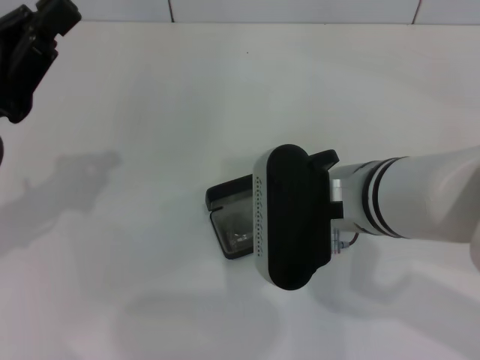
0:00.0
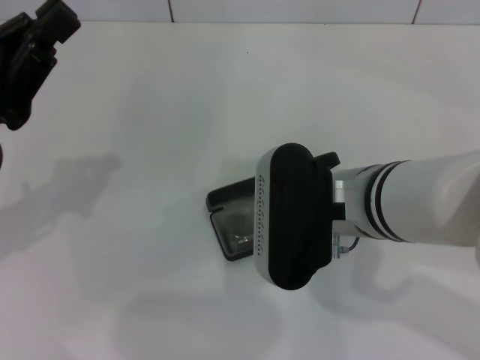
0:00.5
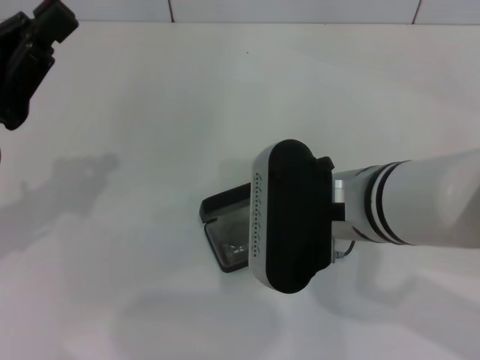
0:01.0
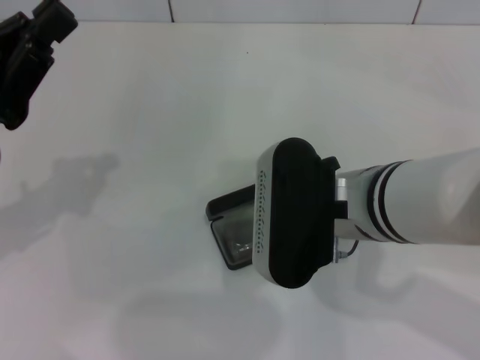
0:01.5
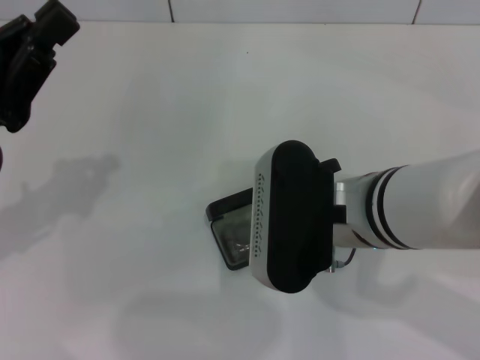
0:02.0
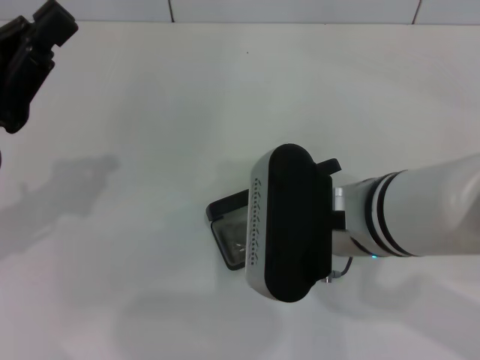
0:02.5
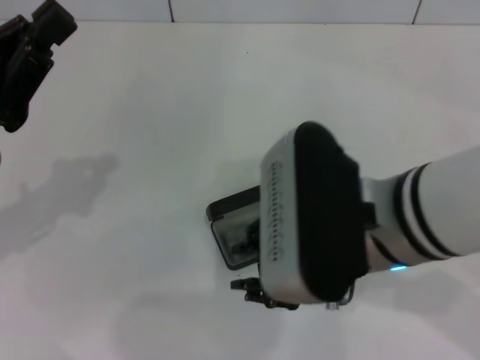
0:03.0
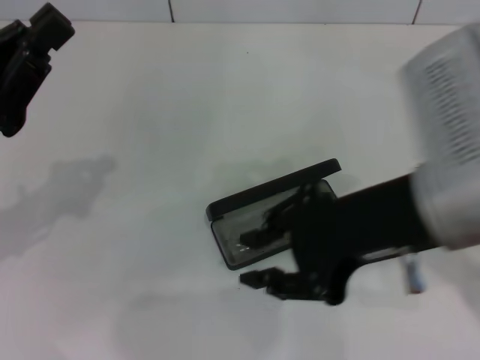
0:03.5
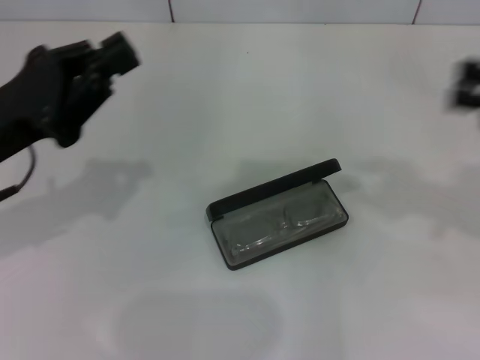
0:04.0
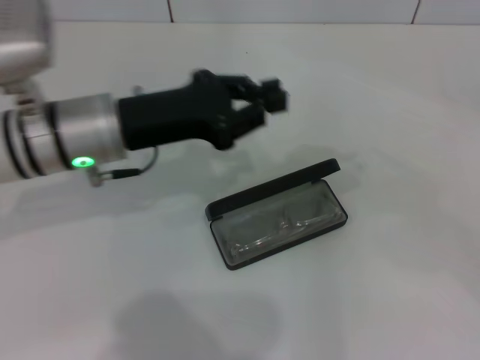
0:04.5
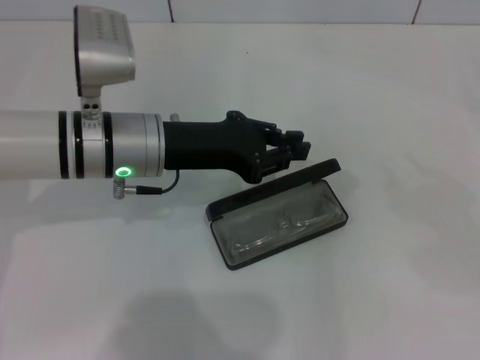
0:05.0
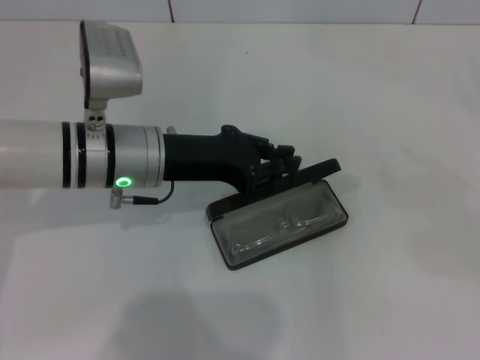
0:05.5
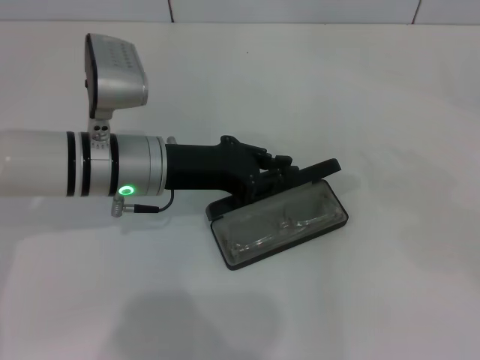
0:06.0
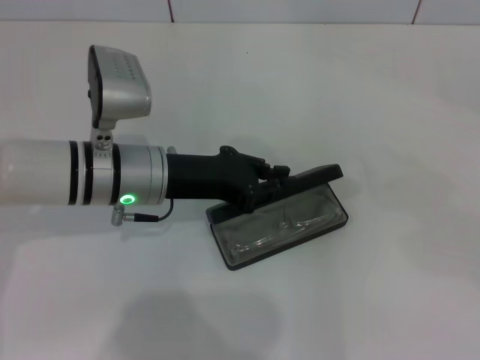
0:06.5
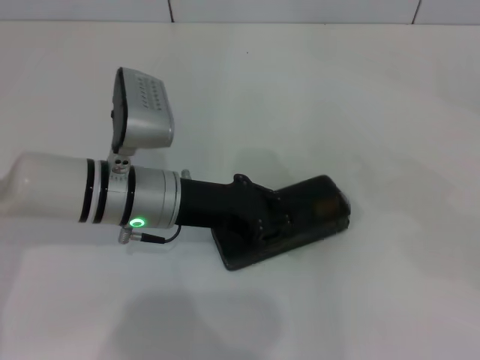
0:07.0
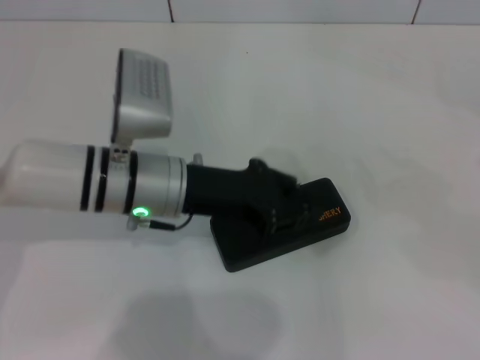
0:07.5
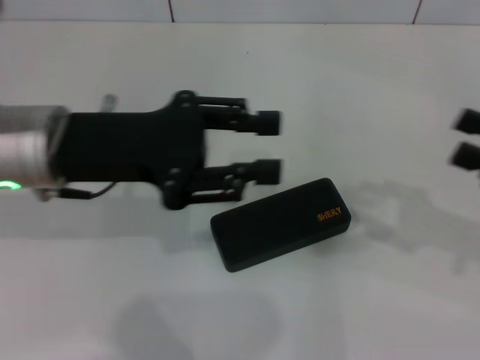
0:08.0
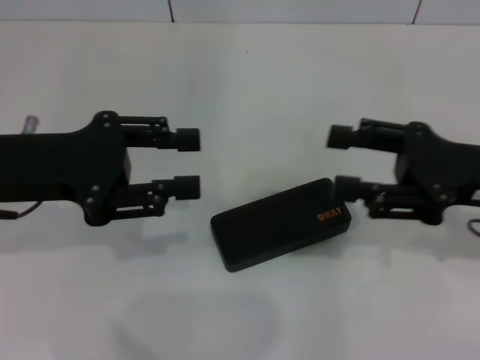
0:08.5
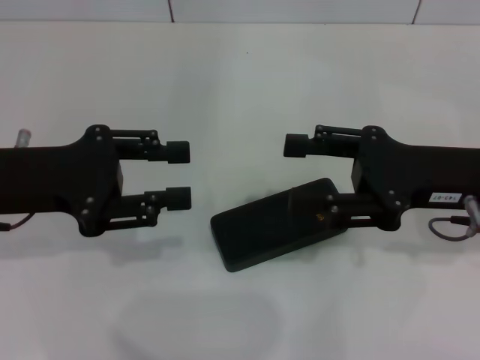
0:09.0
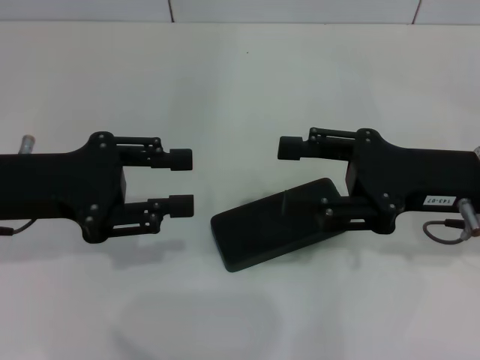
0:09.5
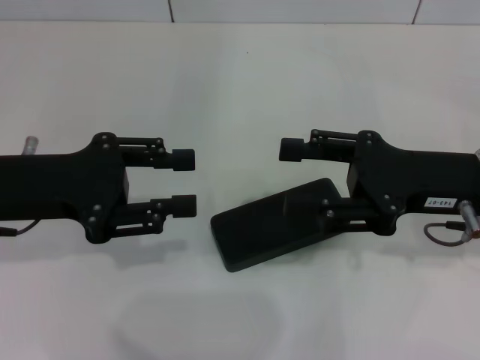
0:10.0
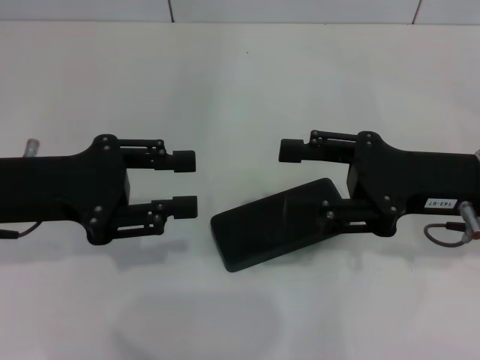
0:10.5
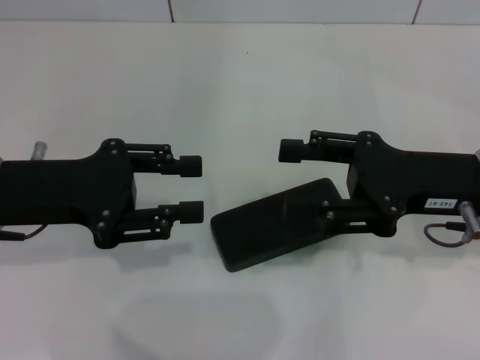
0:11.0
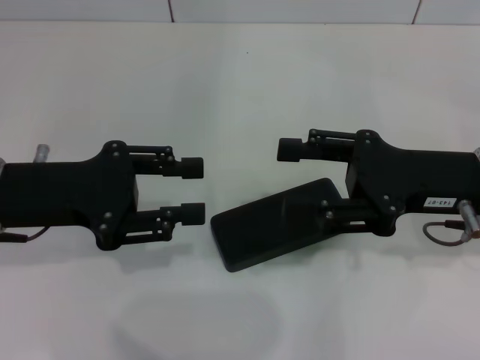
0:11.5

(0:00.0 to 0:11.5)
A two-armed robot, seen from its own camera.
Step, 0:00.0 - 0:02.0: Put the glasses into the case with your right hand.
Step, 0:02.5 - 0:07.0: Close the glasses case with your left hand.
0:00.0 - 0:02.0: The grippers stay close to where they were, moving slightly.
0:02.0 - 0:04.0: The right gripper moves to the right, approximately 25 cm.
0:04.0 - 0:06.0: The right gripper travels to the right and downward by roughly 15 cm, while the left gripper shifts approximately 15 cm to the right, forward and downward.
0:06.0 - 0:07.5: There are only small adjustments of the grippers.
0:07.5 - 0:09.5: The right gripper moves to the left, approximately 20 cm, and opens. The left gripper is displaced to the left and upward by about 15 cm, and opens up.
0:09.5 - 0:11.5: The two grippers keep their place.

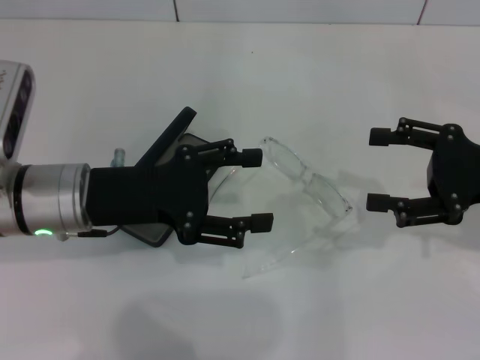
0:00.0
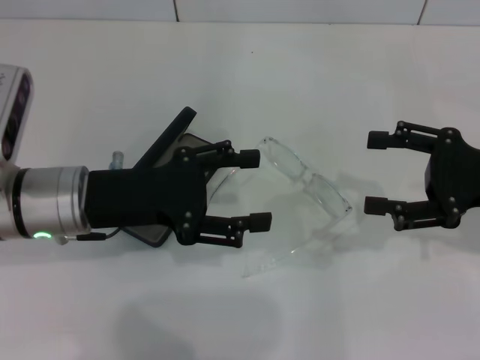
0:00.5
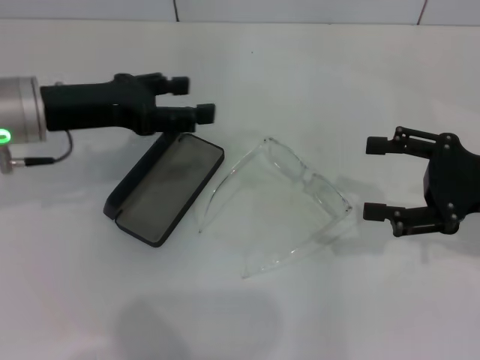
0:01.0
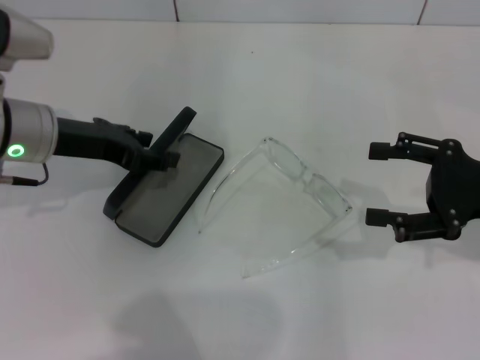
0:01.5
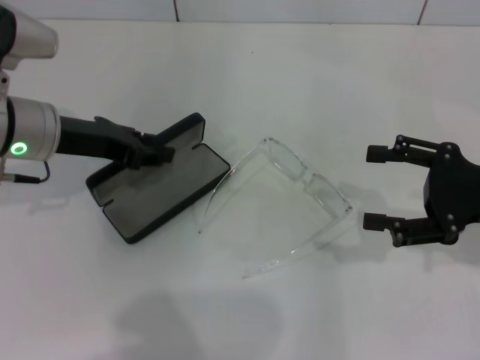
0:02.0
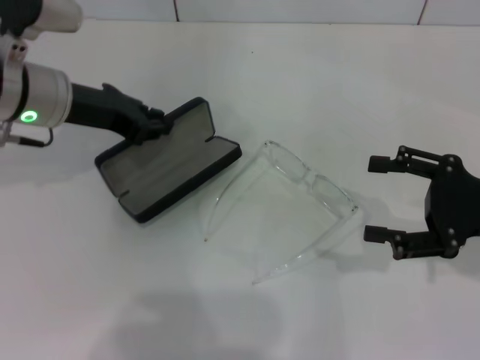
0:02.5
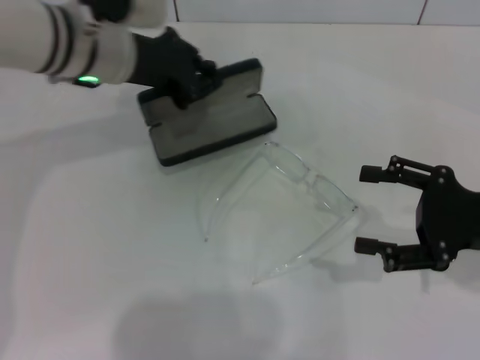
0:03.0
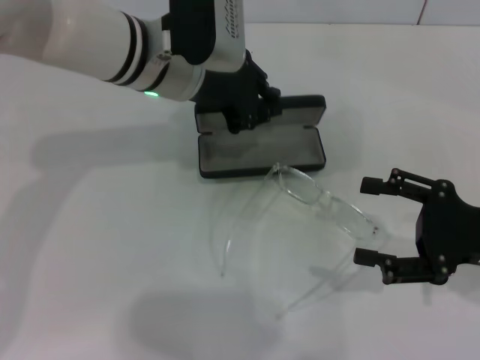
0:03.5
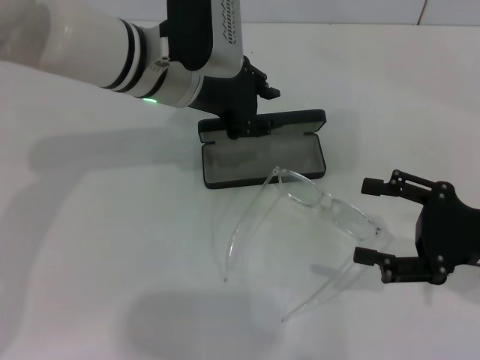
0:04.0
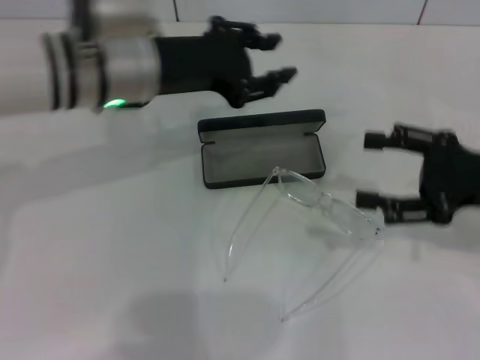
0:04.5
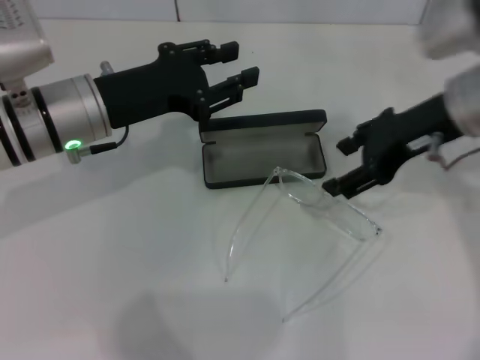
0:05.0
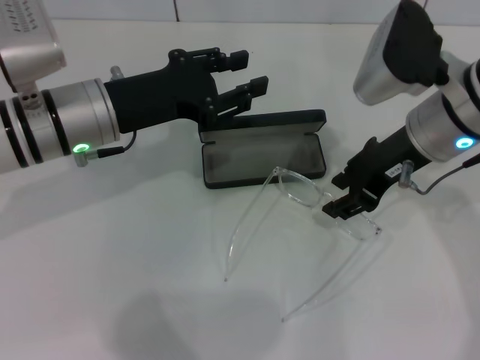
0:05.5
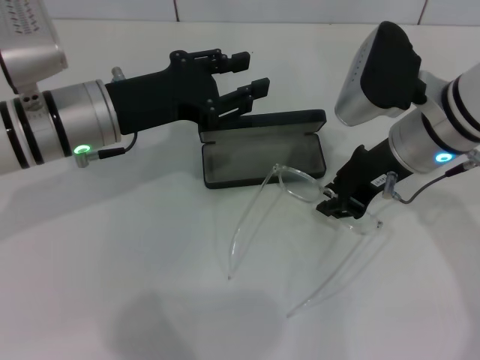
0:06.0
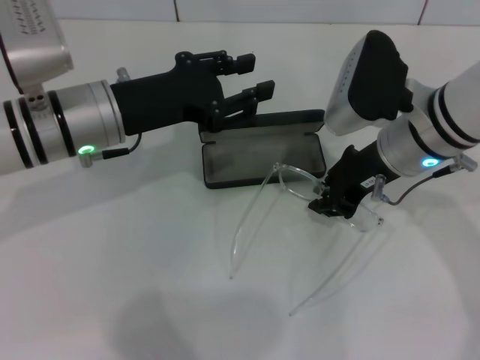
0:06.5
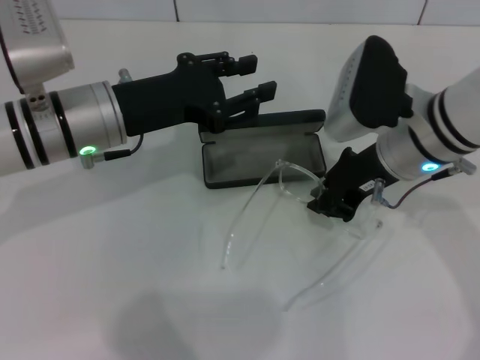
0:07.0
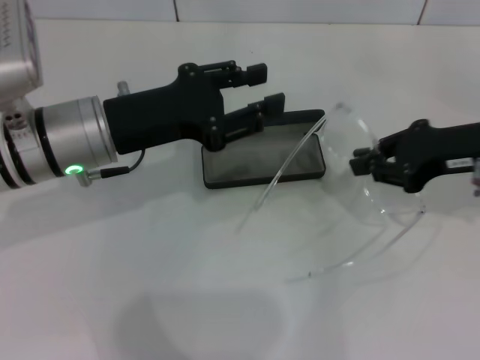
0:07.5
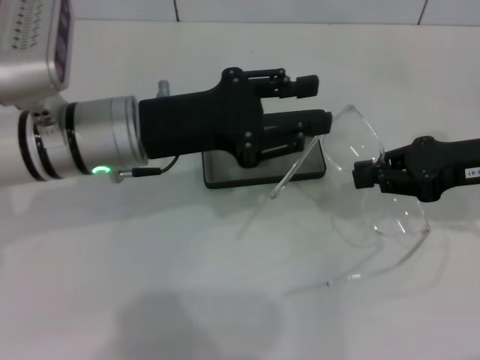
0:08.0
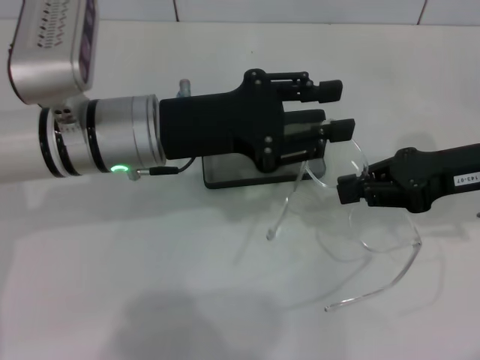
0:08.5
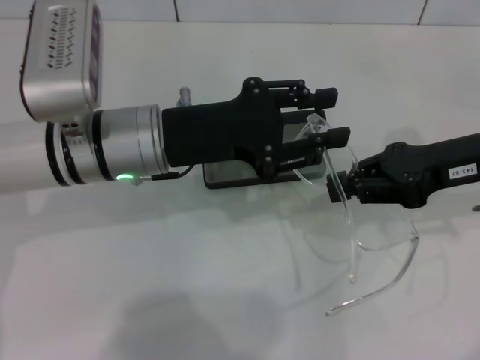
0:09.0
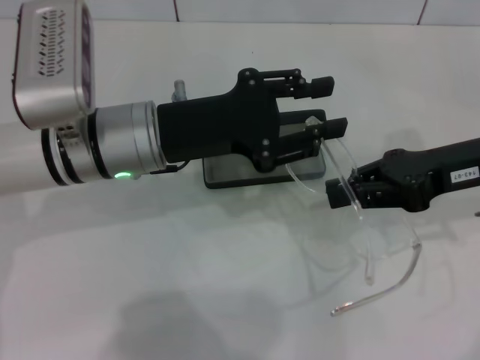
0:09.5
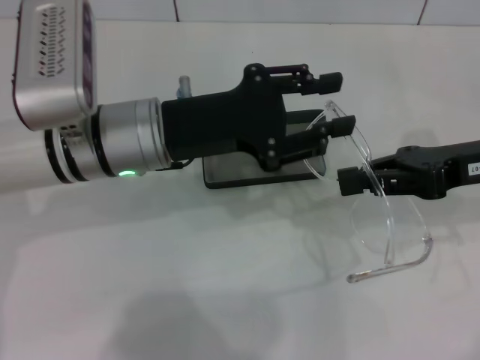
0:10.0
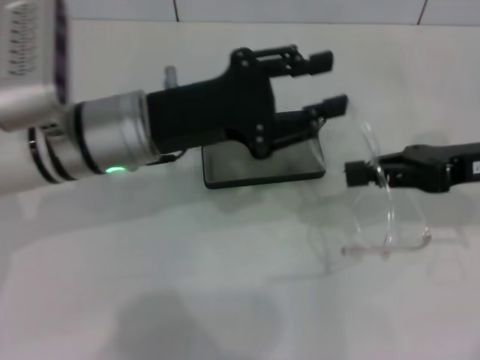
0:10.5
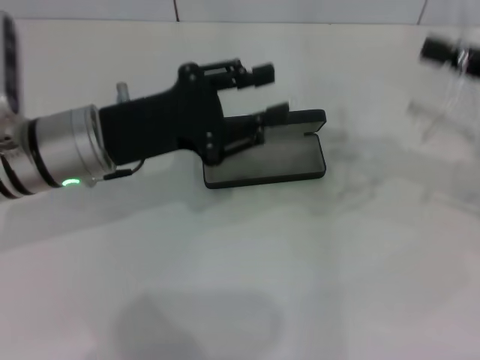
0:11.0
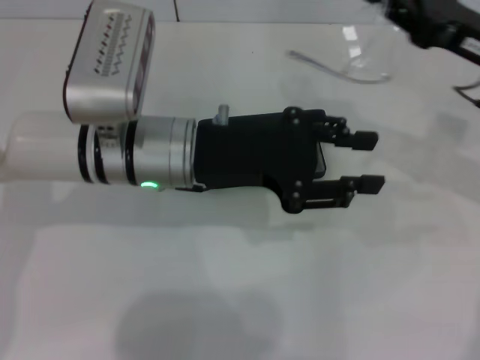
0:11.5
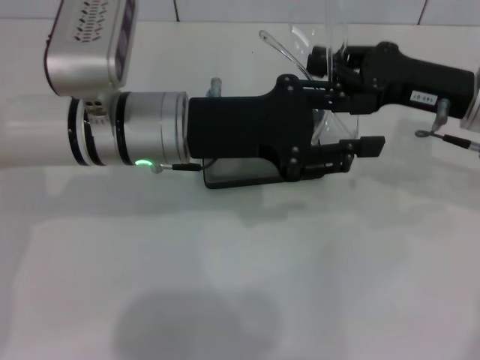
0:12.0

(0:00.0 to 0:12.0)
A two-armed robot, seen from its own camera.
Step, 0:00.0 - 0:02.5: Grab the glasses case with your left hand.
Step, 0:03.0 - 0:04.0: Place the glasses case in the center of the table with your left hand.
Step, 0:04.5 - 0:07.0: Grab the eyeglass frame with your right hand.
0:00.0 - 0:02.0: The left gripper goes approximately 5 cm forward, and closes its fingers.
0:02.0 - 0:04.0: The left gripper moves to the right, roughly 15 cm, and closes.
0:04.0 - 0:06.0: The left gripper is displaced to the left and backward by roughly 10 cm. The right gripper shifts roughly 20 cm to the left, forward and upward, and closes up.
0:06.0 - 0:08.0: The right gripper is displaced to the right by approximately 10 cm.
0:08.0 - 0:10.0: The grippers make only small movements.
0:10.0 - 0:12.0: The right gripper travels to the right and back again, about 5 cm each way.

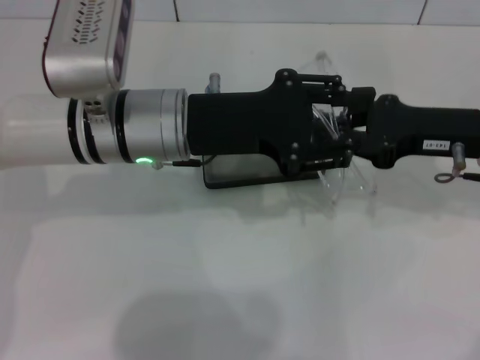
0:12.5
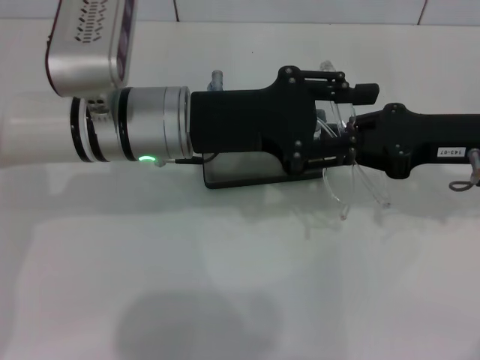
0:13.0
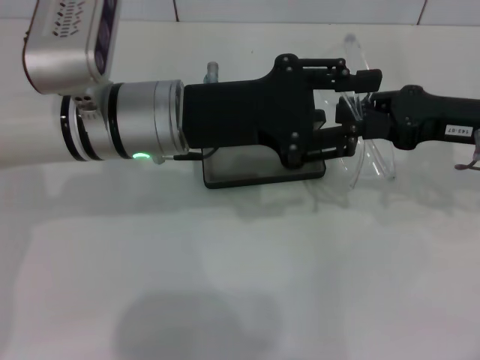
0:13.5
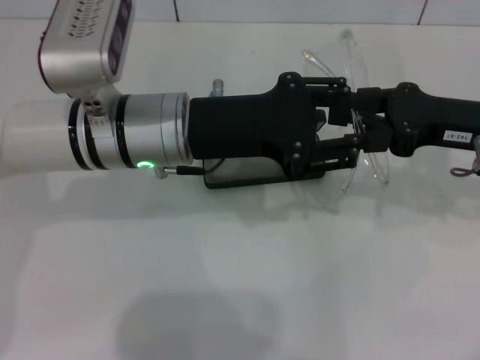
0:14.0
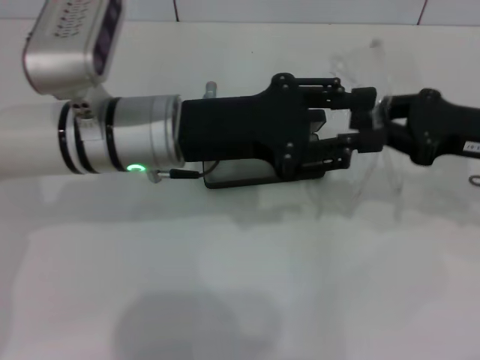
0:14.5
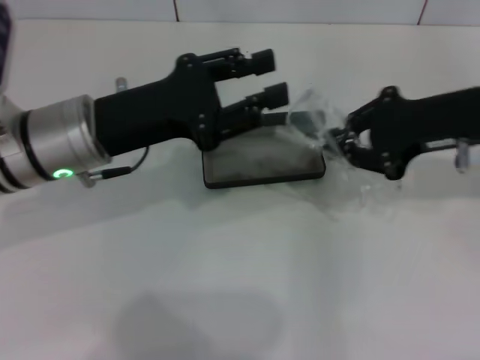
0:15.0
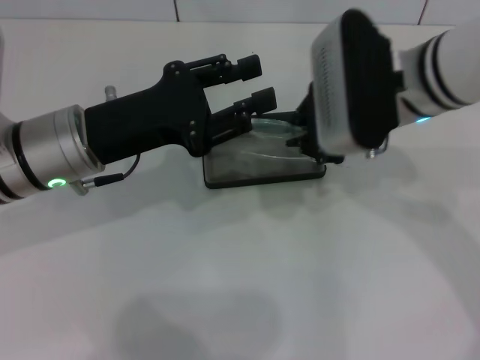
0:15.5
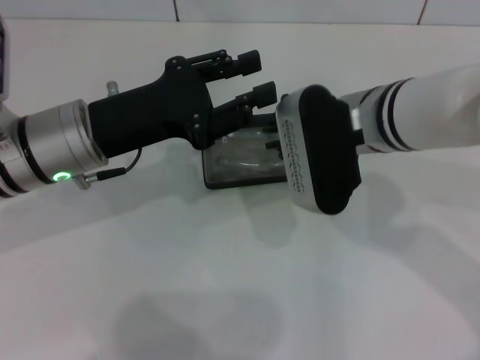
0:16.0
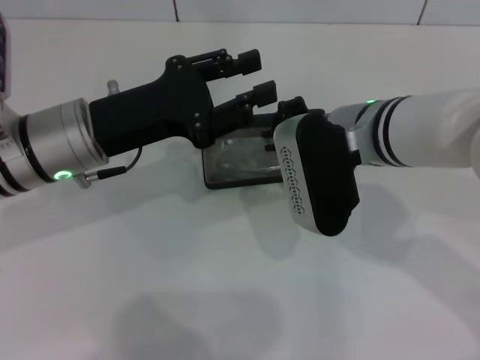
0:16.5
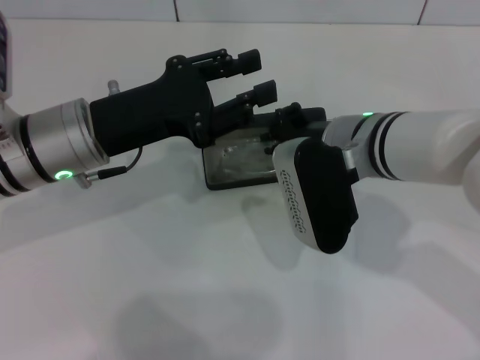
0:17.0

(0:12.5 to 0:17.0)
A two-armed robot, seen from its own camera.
0:12.5 - 0:14.5: The grippers move only a little.
0:14.5 - 0:17.0: The right gripper shifts roughly 20 cm to the left, while the left gripper is displaced to the left by about 5 cm.
